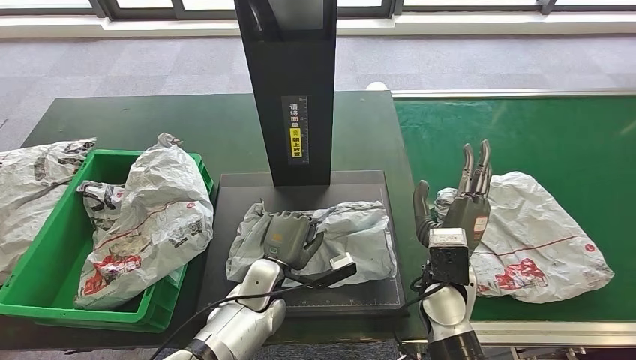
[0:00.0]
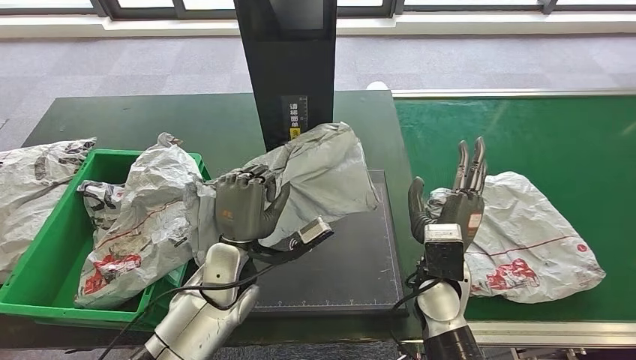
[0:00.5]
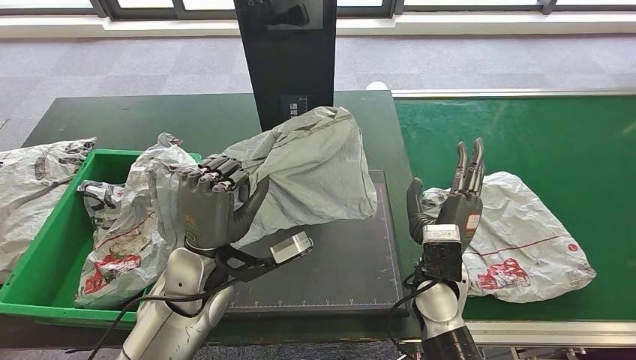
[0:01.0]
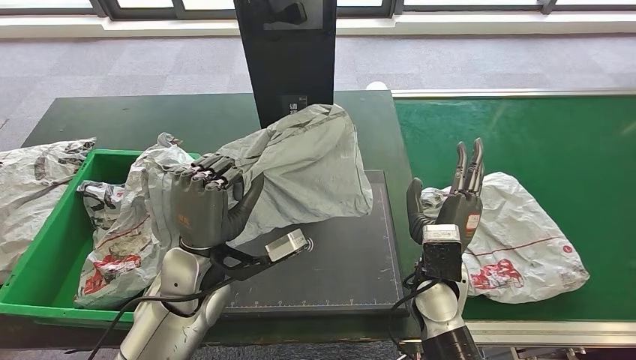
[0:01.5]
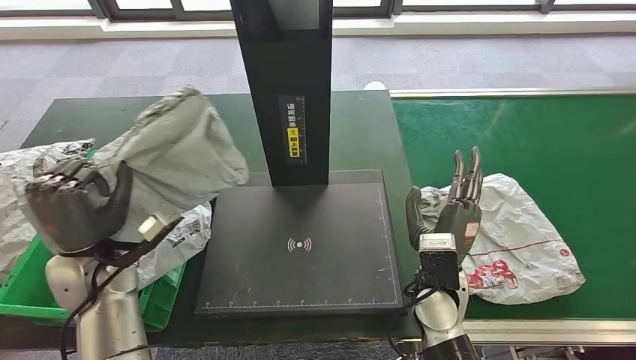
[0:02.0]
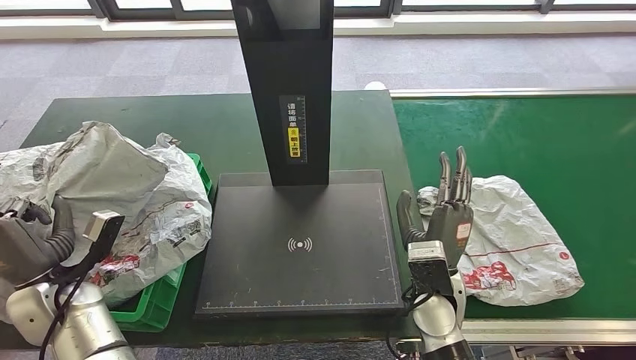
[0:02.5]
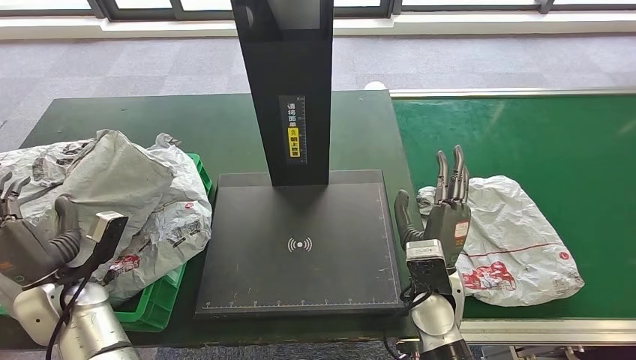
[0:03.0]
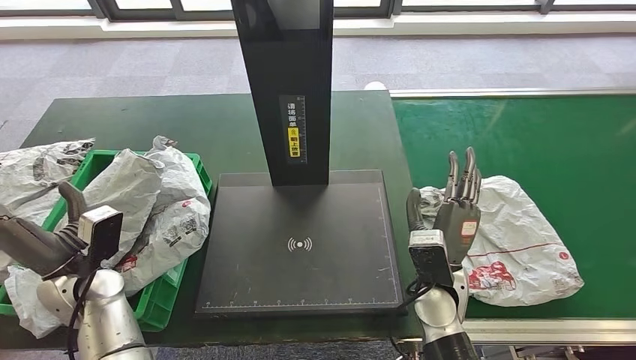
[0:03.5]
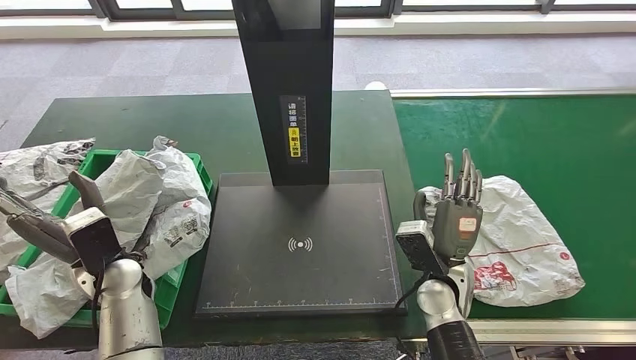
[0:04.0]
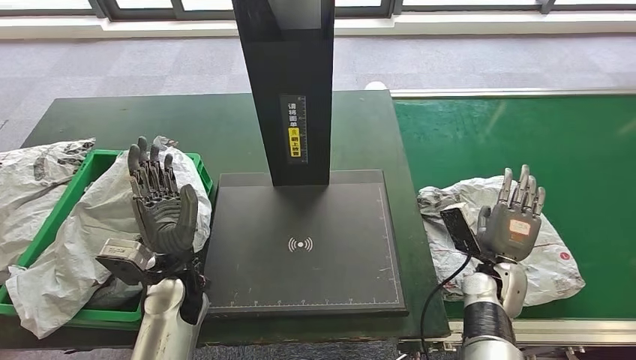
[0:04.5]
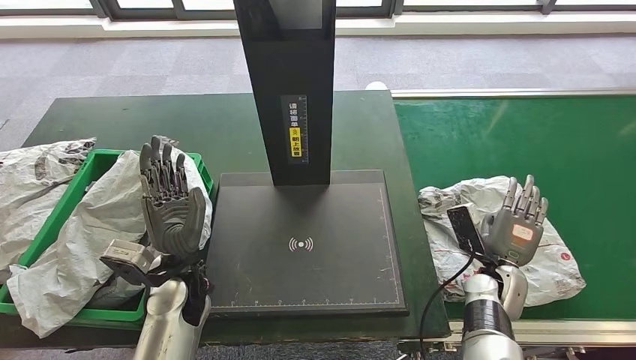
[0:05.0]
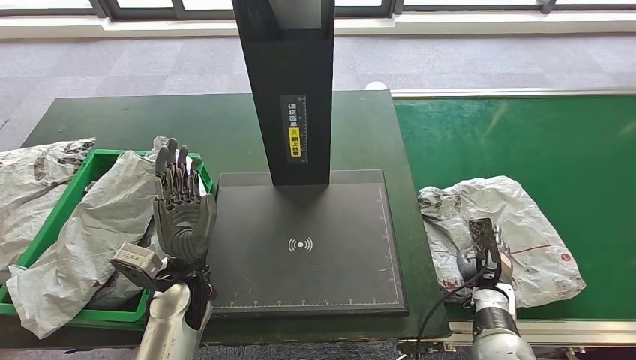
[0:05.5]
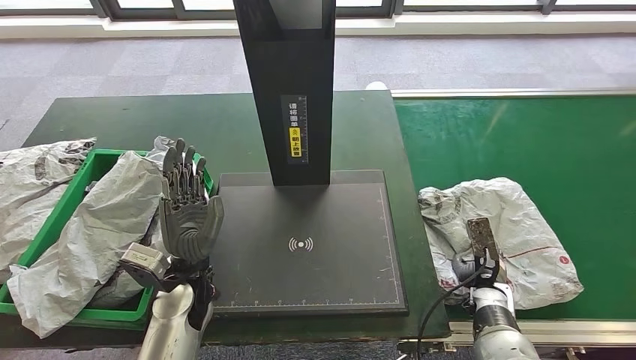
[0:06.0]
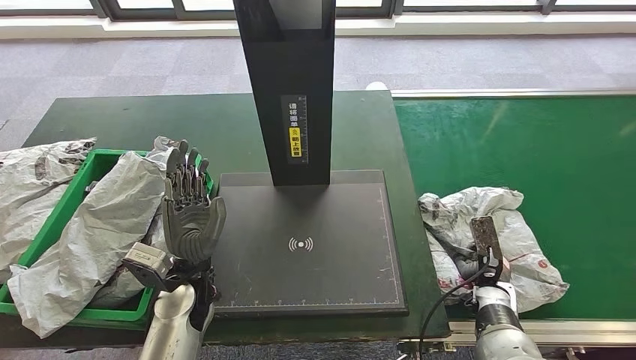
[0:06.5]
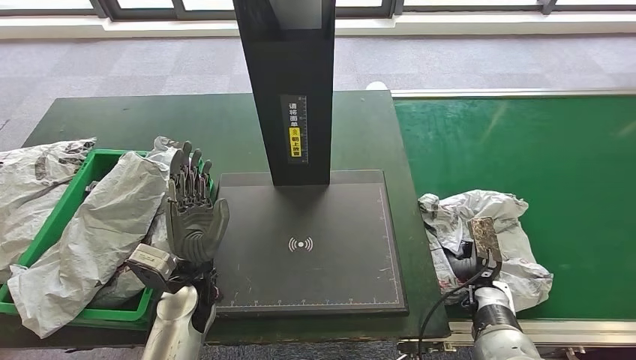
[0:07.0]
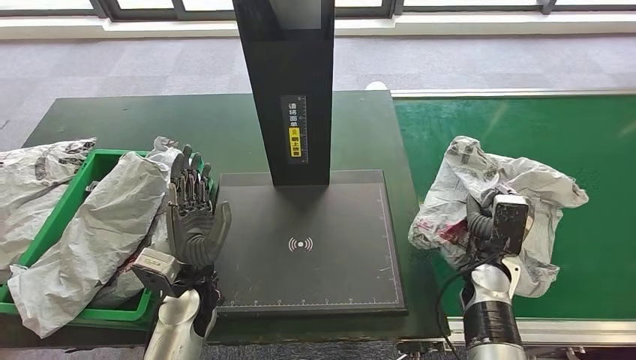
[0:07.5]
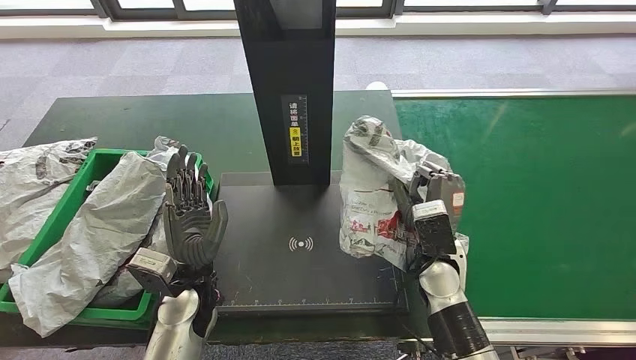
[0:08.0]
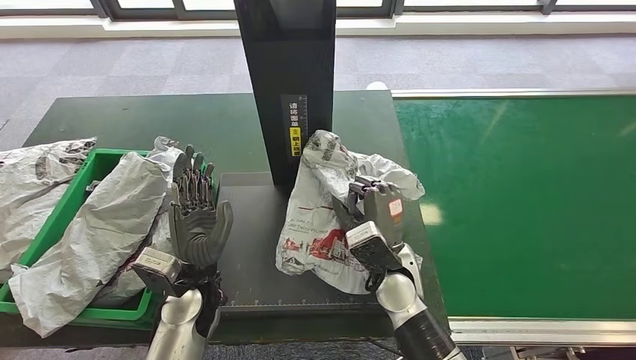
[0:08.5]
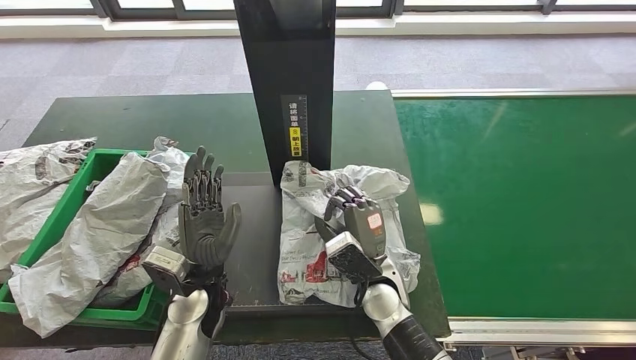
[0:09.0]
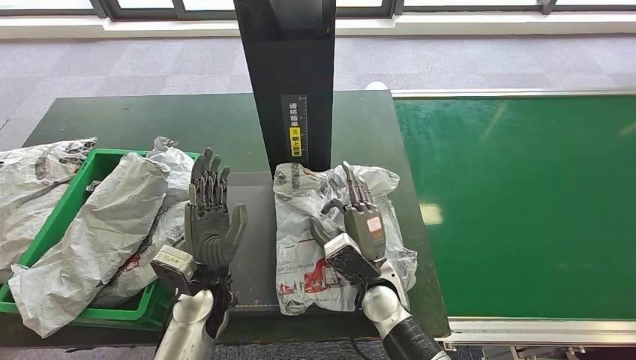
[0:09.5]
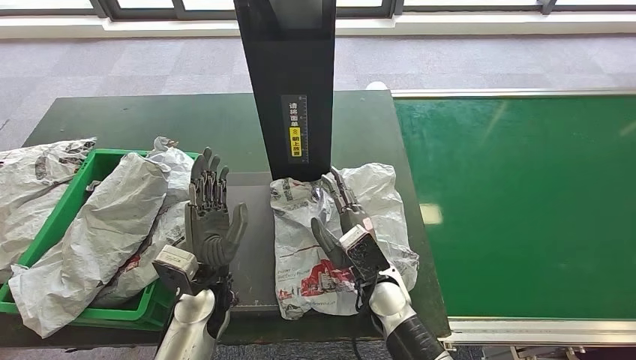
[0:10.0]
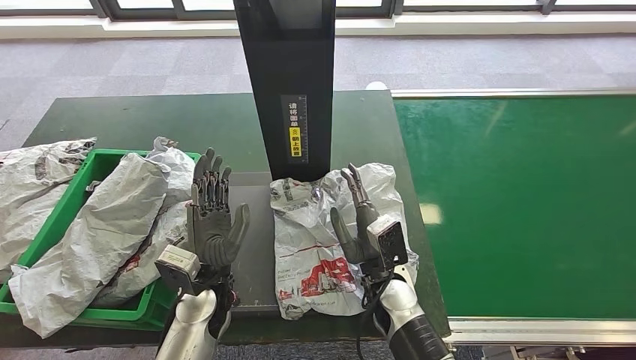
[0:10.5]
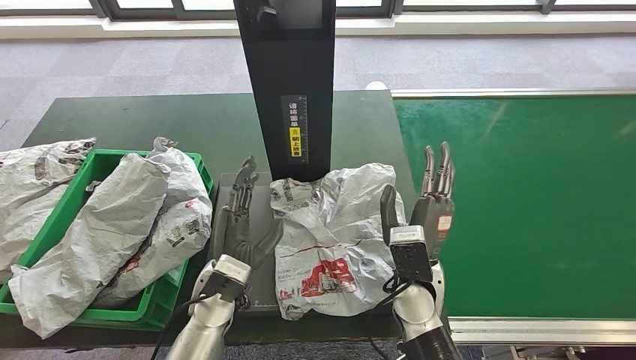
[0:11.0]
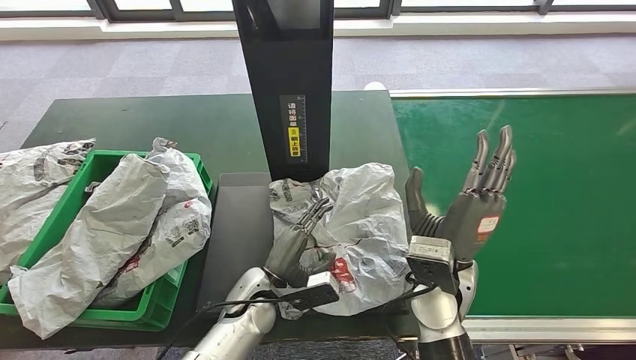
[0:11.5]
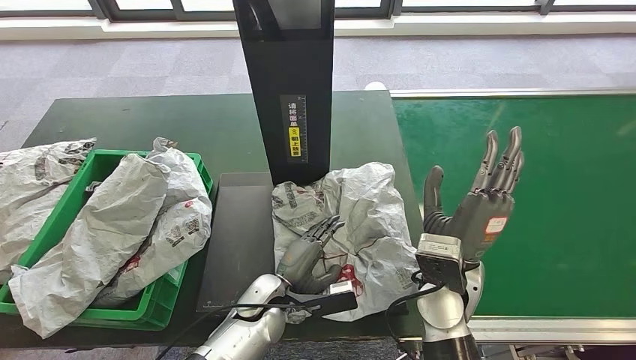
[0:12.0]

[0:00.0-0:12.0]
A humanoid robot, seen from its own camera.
Step, 0:01.5 to 0:04.5: Place the parcel into the delivery box.
Step, 0:05.0 to 0:07.5: Pick up the parcel from the conveyor belt.
Step, 0:08.0 to 0:10.5: Place the parcel onto the inbound machine.
0:02.0 to 0:04.0: The left hand travels to the left and back again, some 5 cm each way.
0:04.0 to 0:06.0: The right hand travels to the right and downward by about 15 cm; the left hand moves to the right, approximately 10 cm.
0:06.0 to 0:08.0: The right hand moves to the left and upward, some 15 cm.
0:08.0 to 0:10.0: The right hand moves to the left, approximately 10 cm.
0:10.0 to 0:12.0: The left hand is displaced downward and to the right by about 10 cm. The right hand goes some 10 cm upward and to the right.

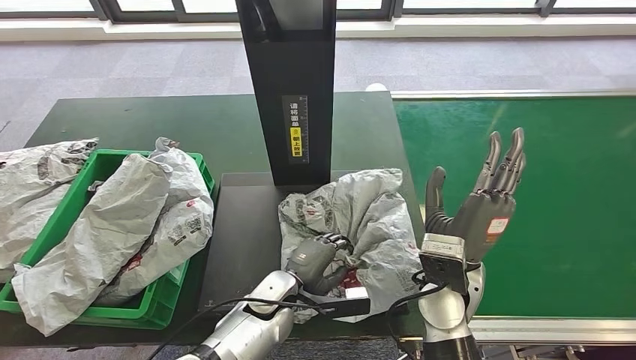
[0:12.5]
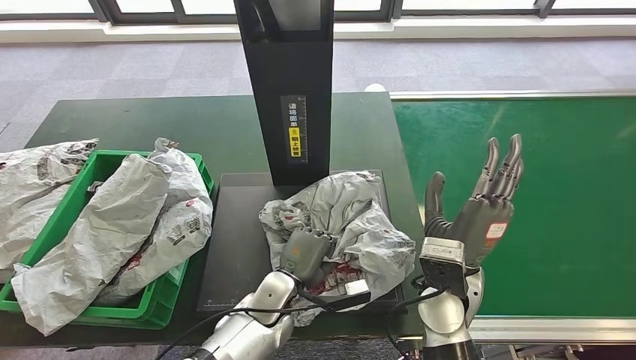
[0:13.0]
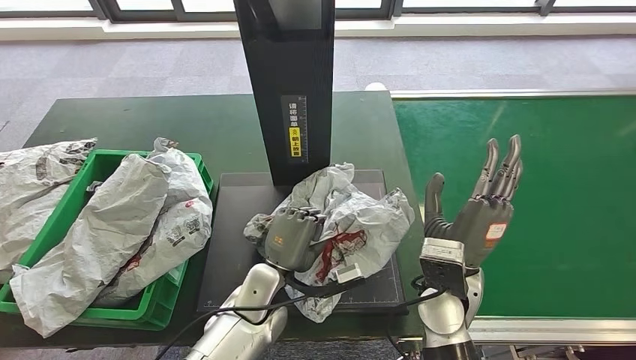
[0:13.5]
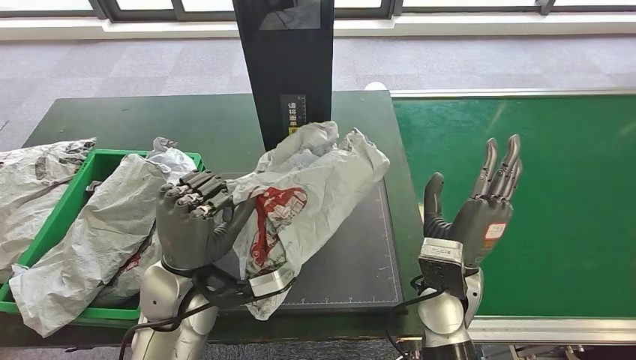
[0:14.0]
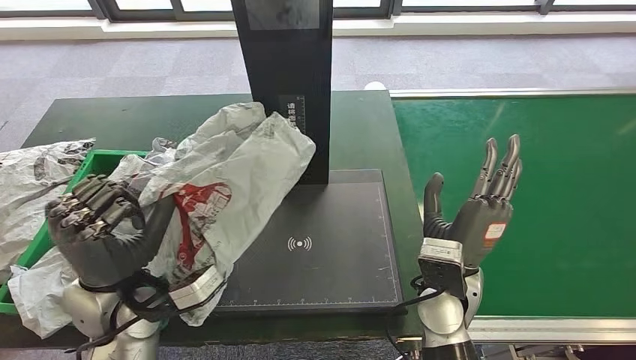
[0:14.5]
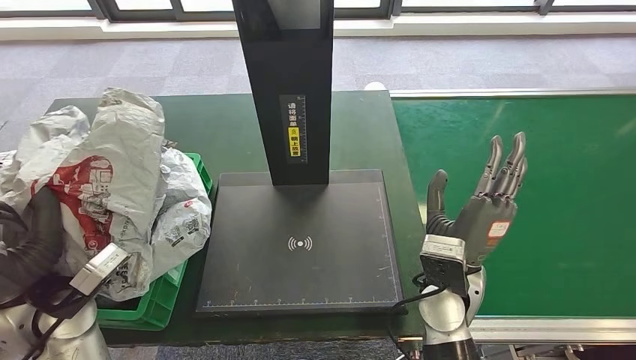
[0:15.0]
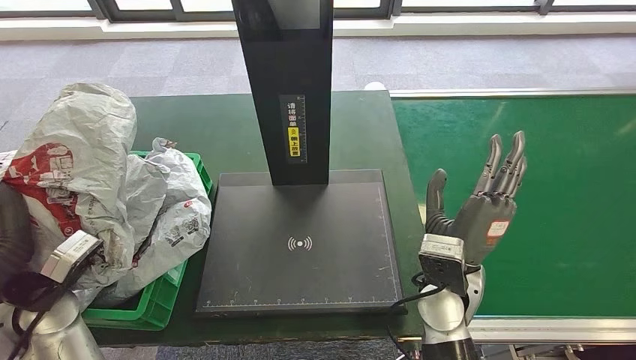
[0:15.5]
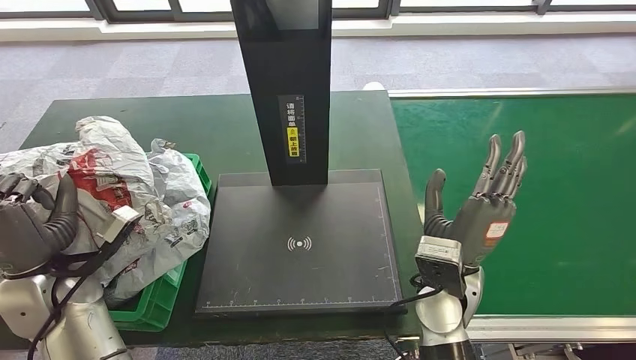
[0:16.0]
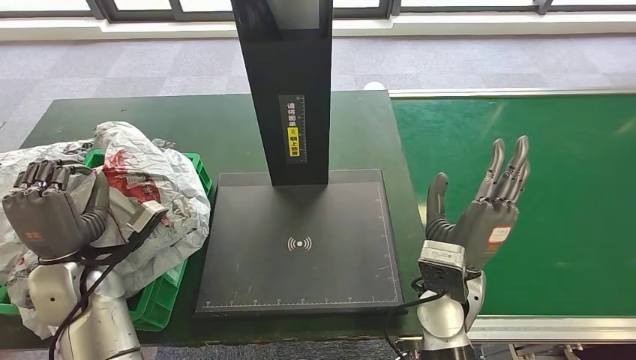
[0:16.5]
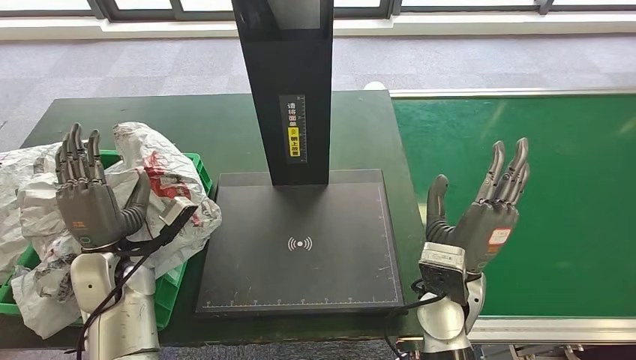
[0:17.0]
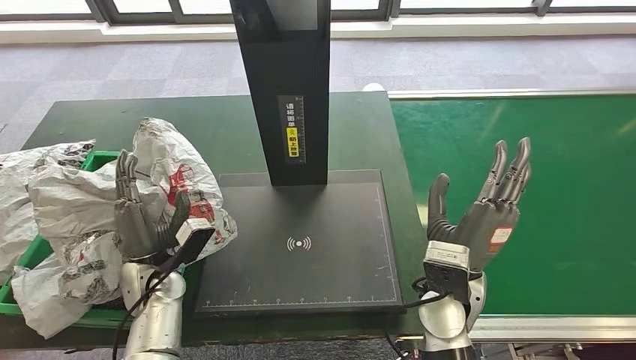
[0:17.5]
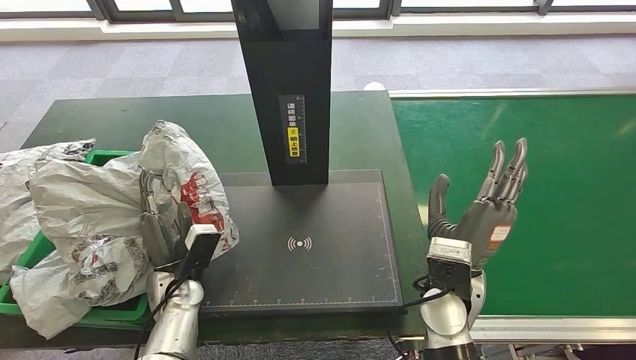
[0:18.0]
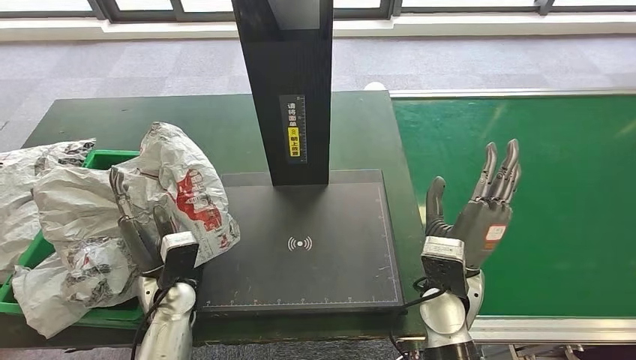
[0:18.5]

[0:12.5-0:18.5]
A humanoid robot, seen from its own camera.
Step, 0:14.5 to 0:18.5: Place the parcel into the delivery box.
0:16.5 to 0:18.5: The left hand is displaced to the right and downward by approximately 15 cm.
